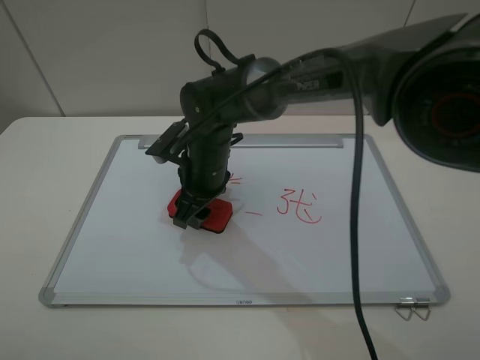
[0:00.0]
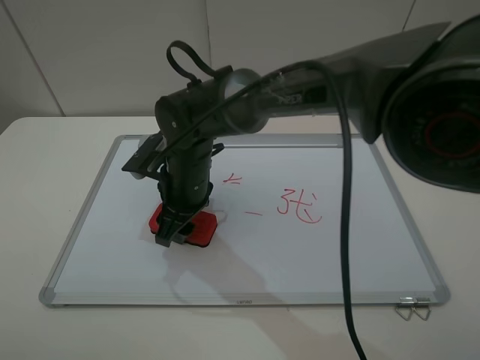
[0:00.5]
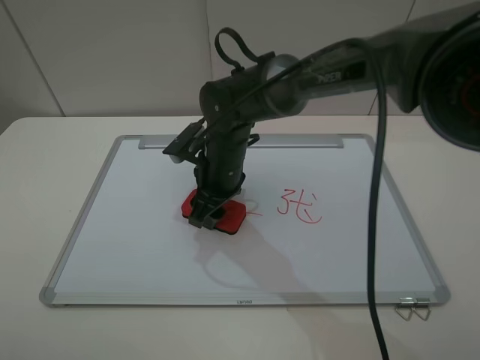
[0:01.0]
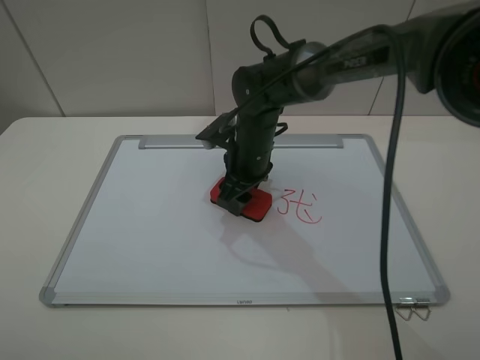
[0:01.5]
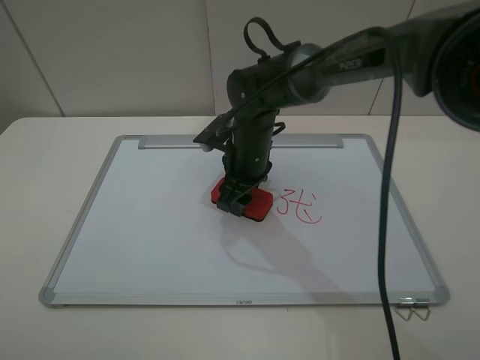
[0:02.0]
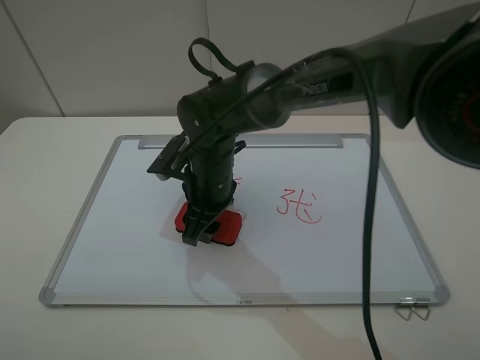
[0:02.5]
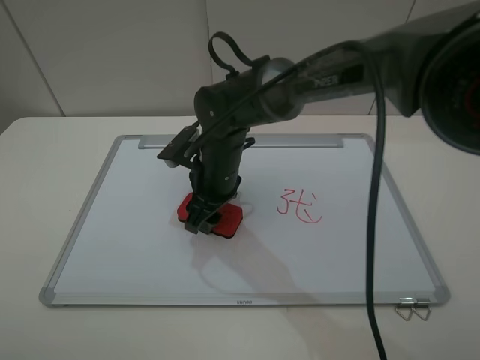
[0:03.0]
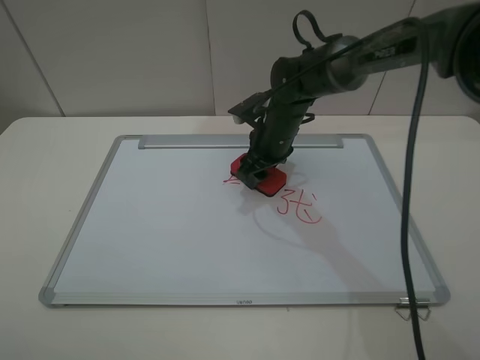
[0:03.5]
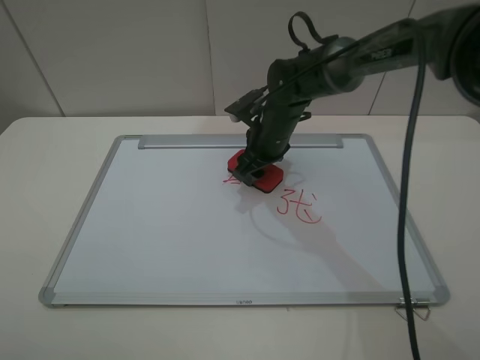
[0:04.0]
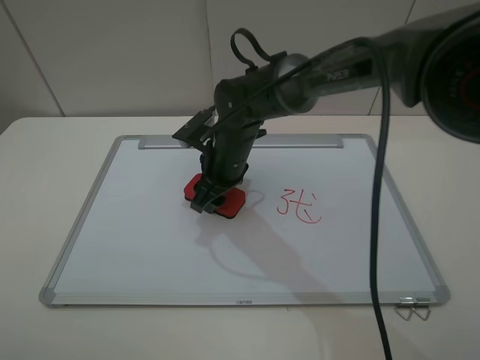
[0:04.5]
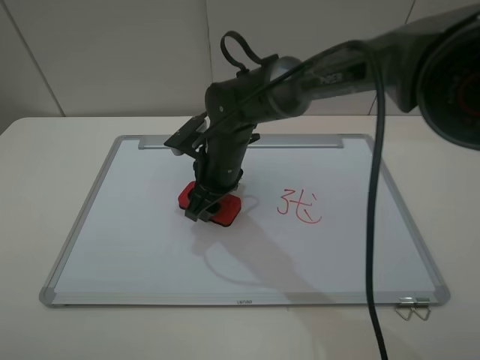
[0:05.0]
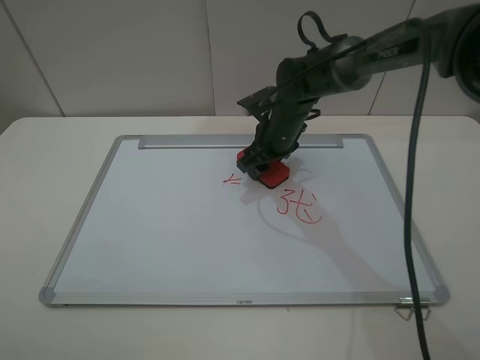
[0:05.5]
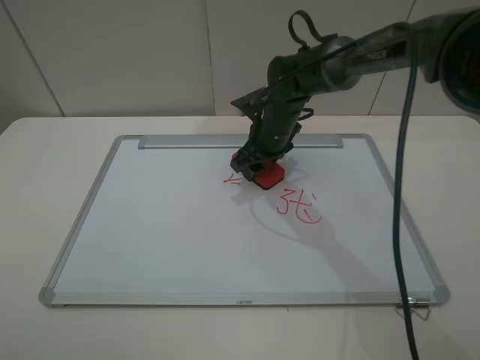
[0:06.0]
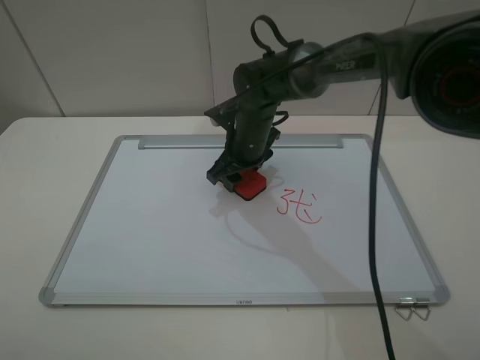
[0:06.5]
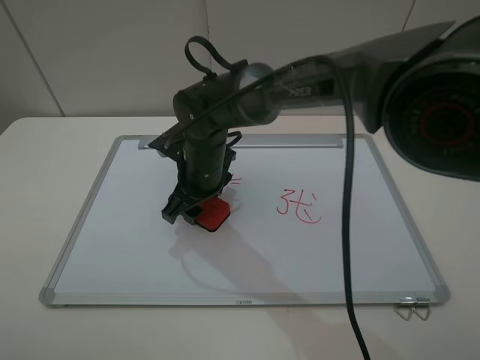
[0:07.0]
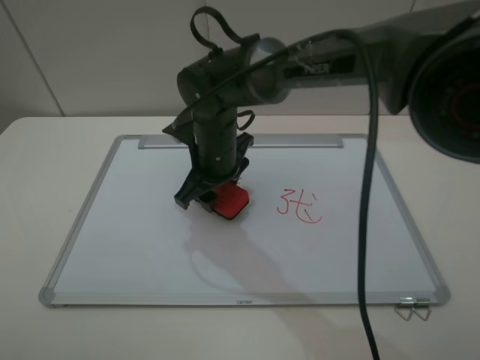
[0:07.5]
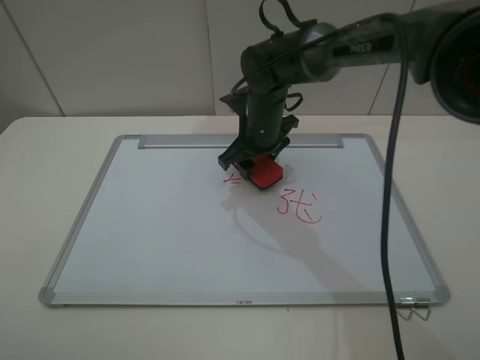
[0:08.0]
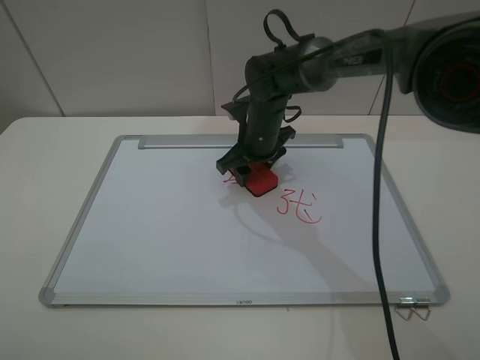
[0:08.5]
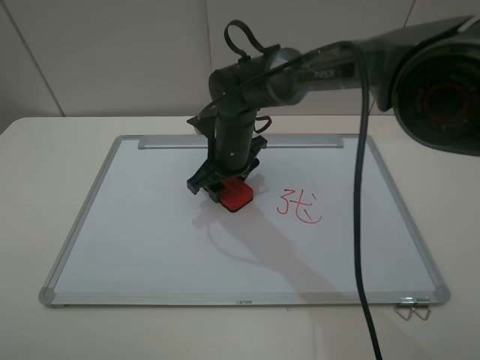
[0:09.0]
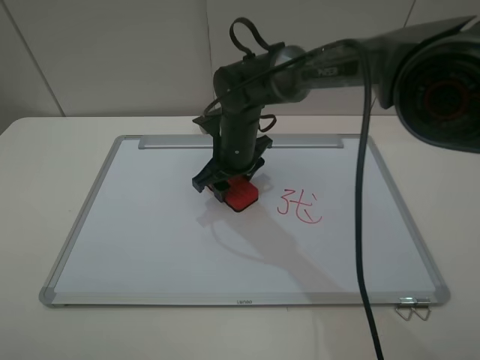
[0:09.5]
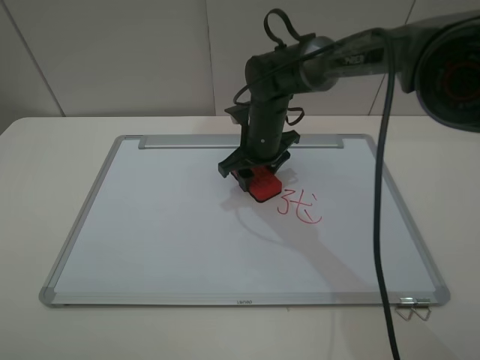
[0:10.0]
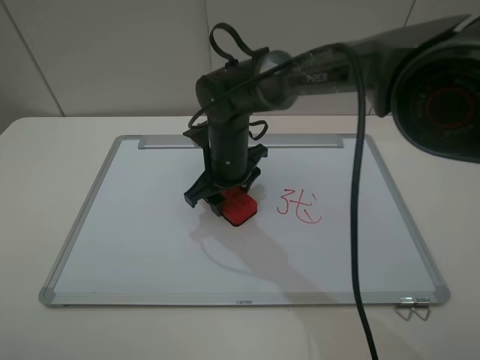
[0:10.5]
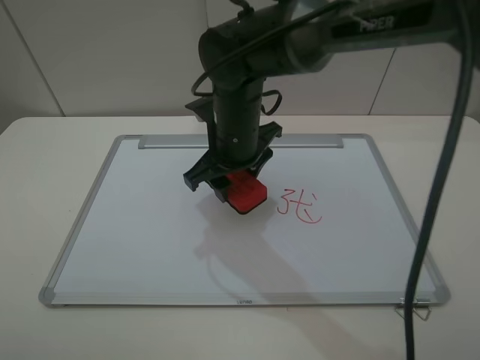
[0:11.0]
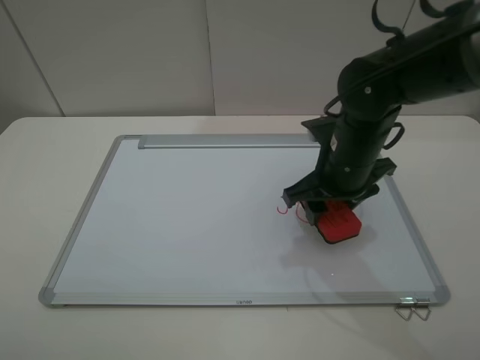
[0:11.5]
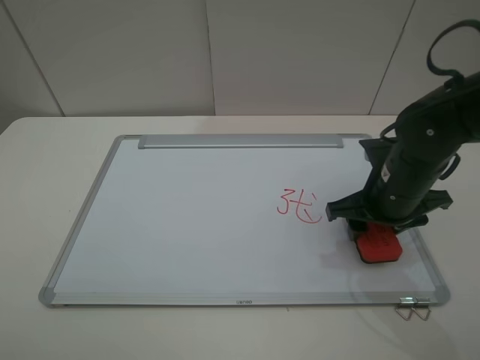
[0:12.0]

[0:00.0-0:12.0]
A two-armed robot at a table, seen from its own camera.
Step, 0:00.0 to 0:10.5: Grasp the eraser and wipe the blackboard with the right gripper.
0:00.0 to 0:02.0: The right gripper is displaced to the right by roughly 5 cm.
0:02.0 to 0:04.0: The right gripper moves forward, about 5 cm.
0:04.0 to 0:06.0: The right gripper reaches roughly 5 cm to the left, then returns.
0:06.0 to 0:08.0: The right gripper goes to the left and returns, about 10 cm each way.
0:10.0 to 0:12.0: The right gripper goes roughly 20 cm to the right and backward.

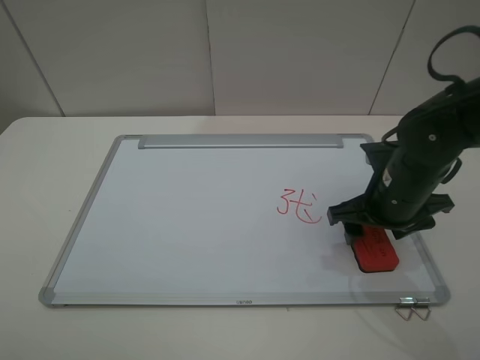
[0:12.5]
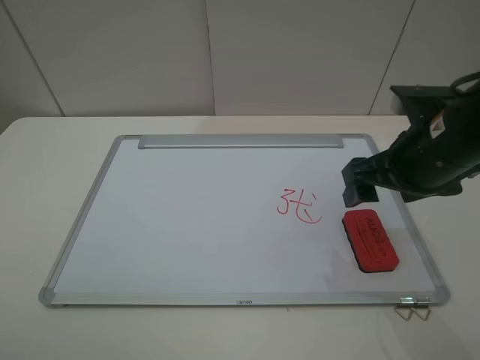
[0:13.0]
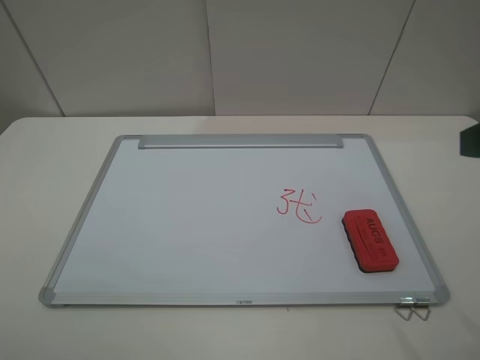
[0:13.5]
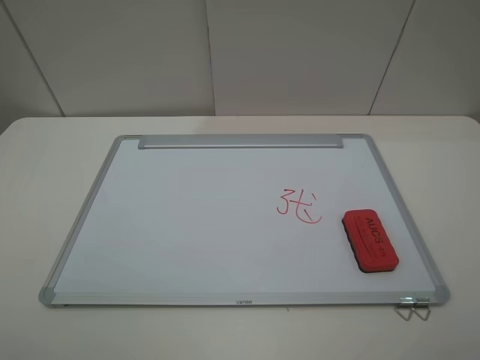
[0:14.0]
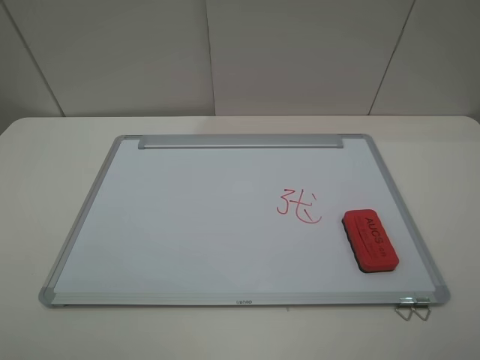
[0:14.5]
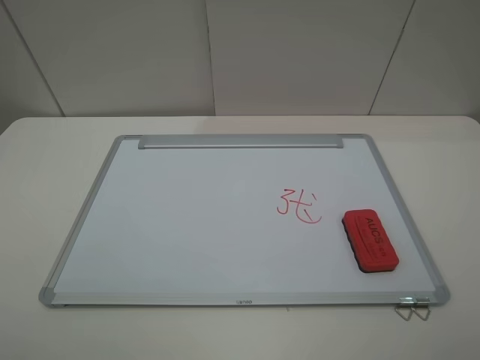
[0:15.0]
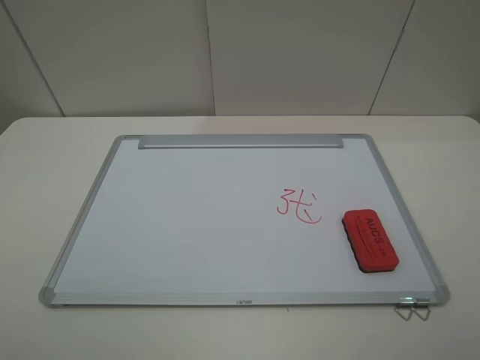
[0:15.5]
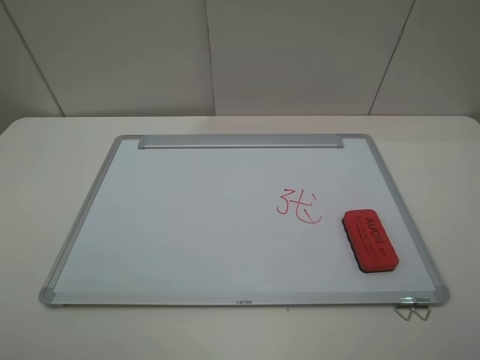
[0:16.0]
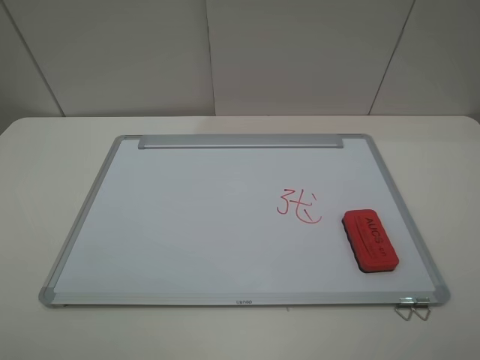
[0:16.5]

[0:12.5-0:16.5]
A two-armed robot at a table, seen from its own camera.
0:12.5 to 0:14.5: The right gripper heads backward and upward, covering some 30 cm.
